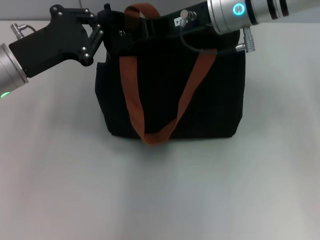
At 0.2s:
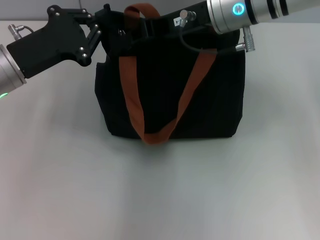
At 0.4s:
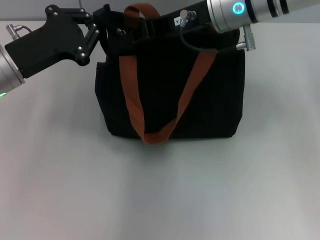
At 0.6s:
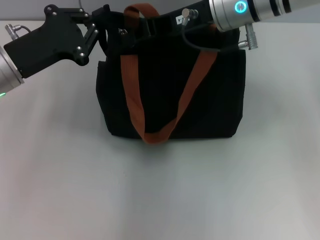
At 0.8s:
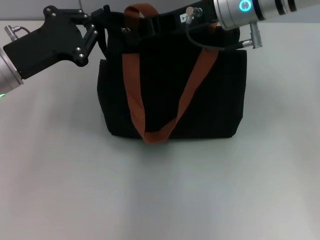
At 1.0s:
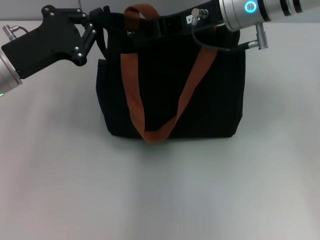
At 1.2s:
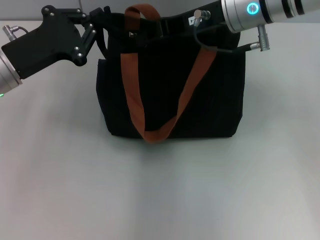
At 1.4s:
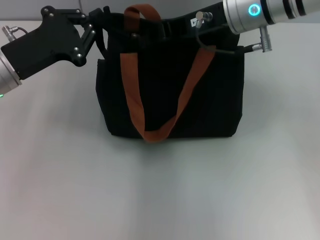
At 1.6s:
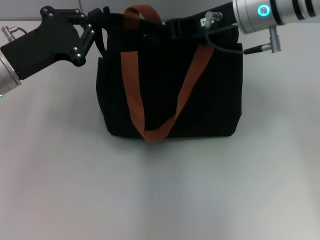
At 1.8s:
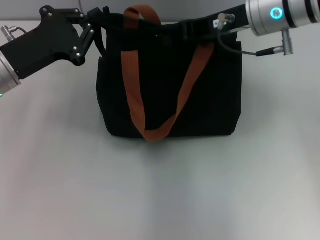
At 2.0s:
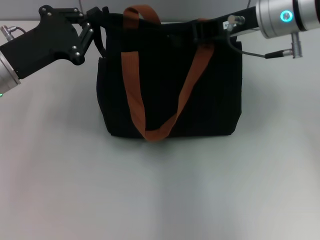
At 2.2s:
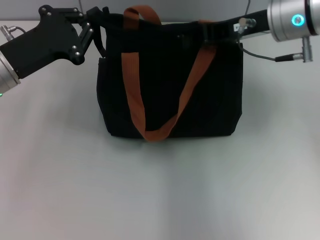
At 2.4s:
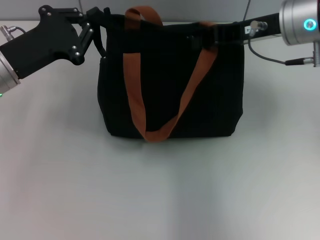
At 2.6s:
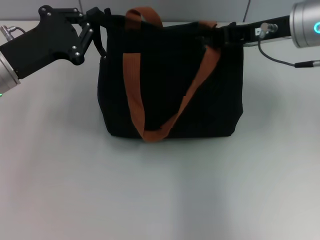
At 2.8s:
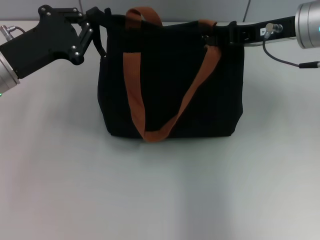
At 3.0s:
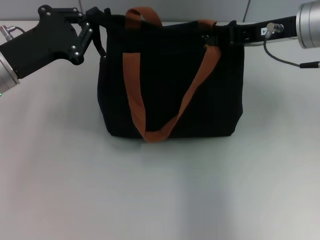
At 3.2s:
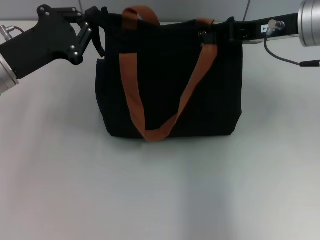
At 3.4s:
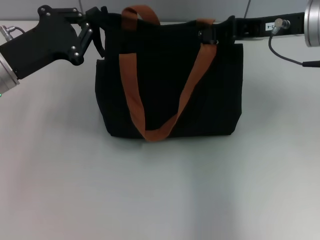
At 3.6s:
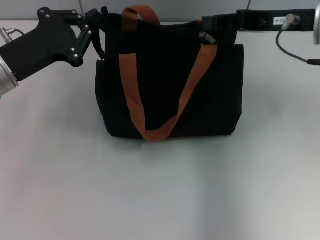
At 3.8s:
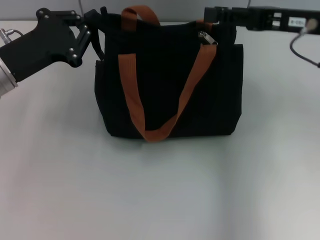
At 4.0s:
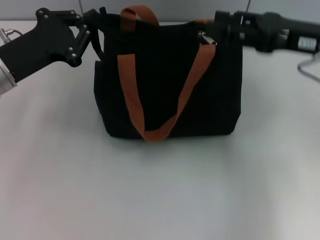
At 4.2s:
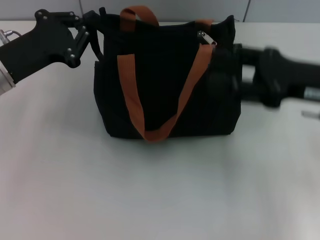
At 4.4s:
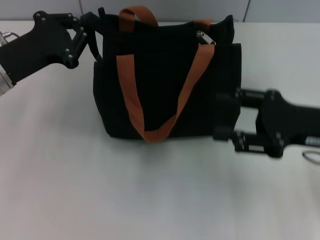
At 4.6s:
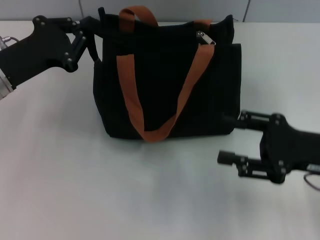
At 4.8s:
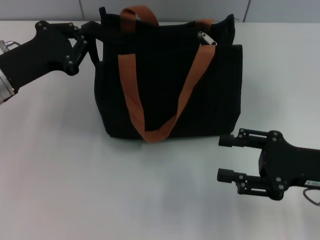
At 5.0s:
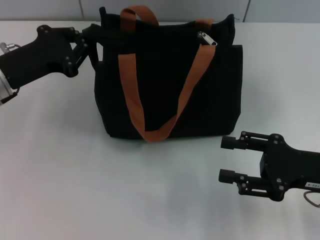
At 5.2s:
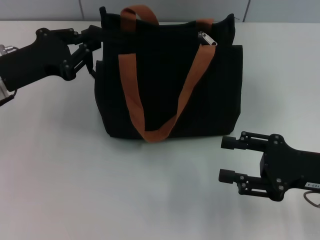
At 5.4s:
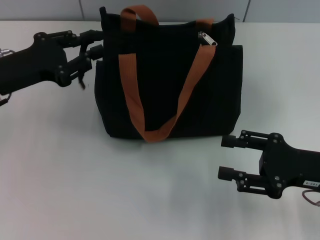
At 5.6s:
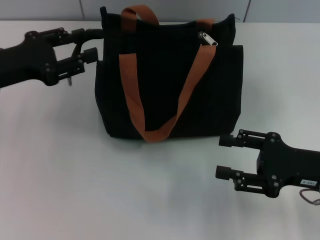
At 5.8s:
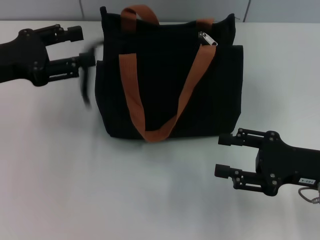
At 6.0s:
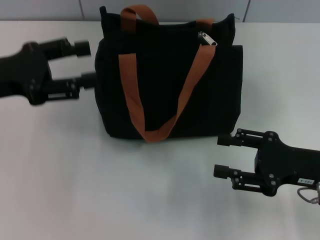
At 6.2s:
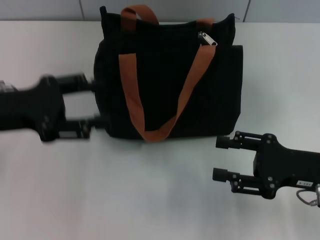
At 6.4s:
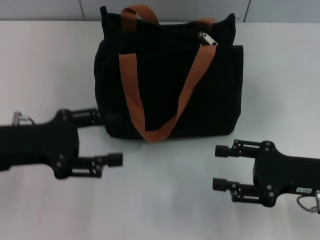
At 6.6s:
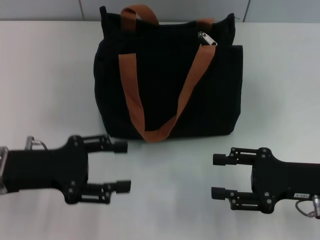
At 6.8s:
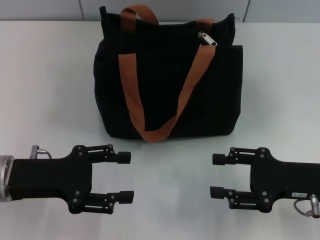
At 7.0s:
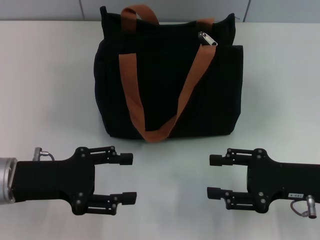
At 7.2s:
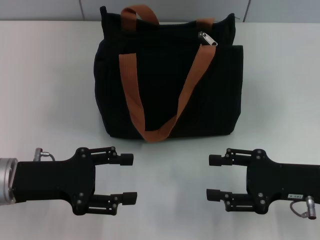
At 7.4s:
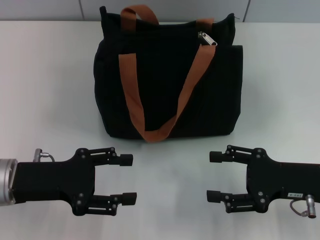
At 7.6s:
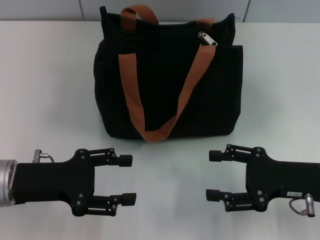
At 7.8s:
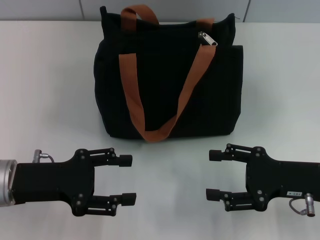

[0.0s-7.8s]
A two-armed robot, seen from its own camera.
Step, 0.0s to 3.6s: Pull up the zipper with your right hand.
Step, 3.8s to 5.4s: Grab the zipper with your left hand.
0.0s to 1.6s: The grippers move only a little.
1.6s to 3.2s: The right gripper goes approximately 5 cm to the right.
3.2s to 4.6s: The right gripper heads backward, downward and to the right, covering some 20 cm, and opens its fingers.
4.6s to 6.2s: The left gripper ends up about 5 cm from where it was, and opens up.
6.2s to 7.8s: The left gripper shifts approximately 5 cm downward.

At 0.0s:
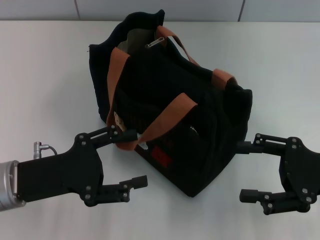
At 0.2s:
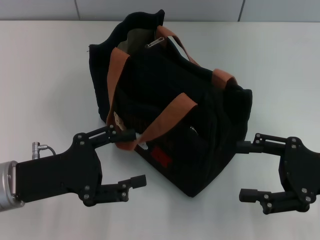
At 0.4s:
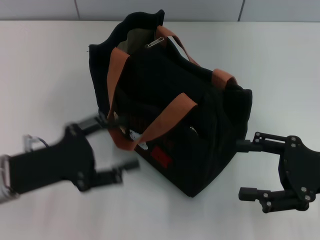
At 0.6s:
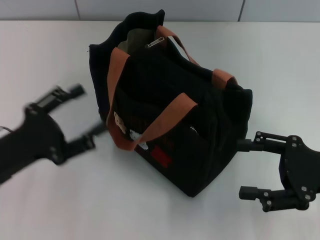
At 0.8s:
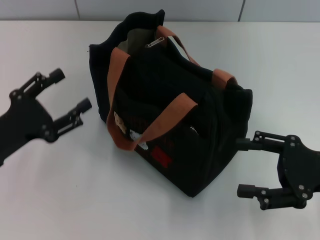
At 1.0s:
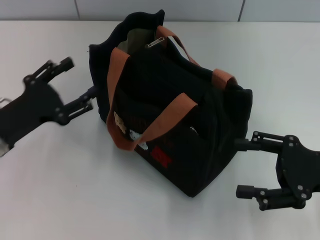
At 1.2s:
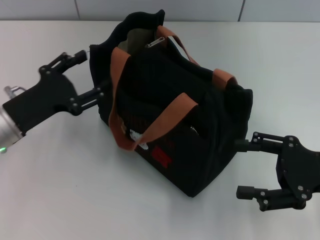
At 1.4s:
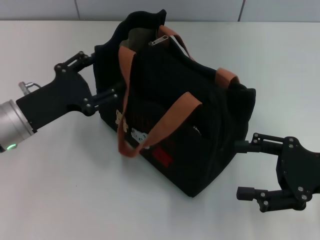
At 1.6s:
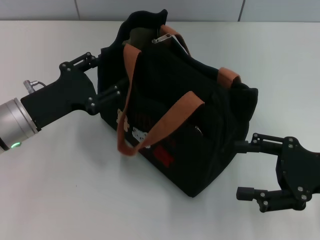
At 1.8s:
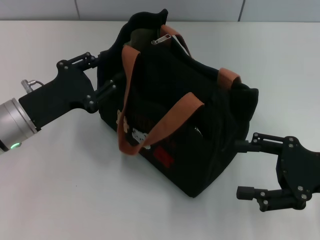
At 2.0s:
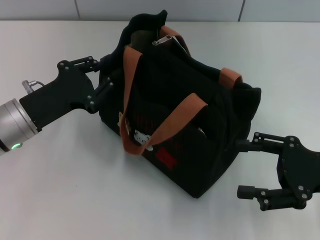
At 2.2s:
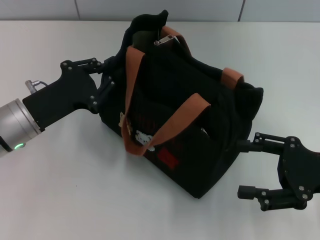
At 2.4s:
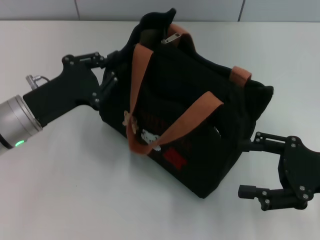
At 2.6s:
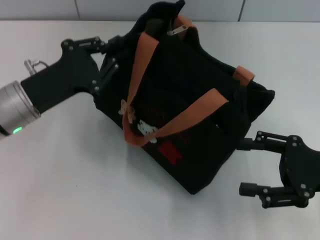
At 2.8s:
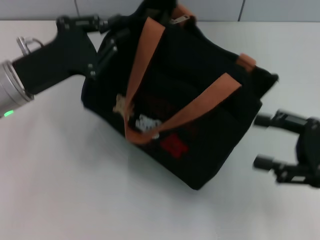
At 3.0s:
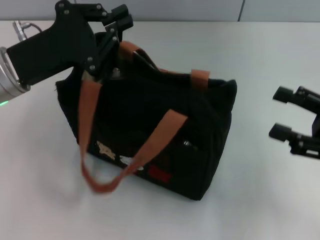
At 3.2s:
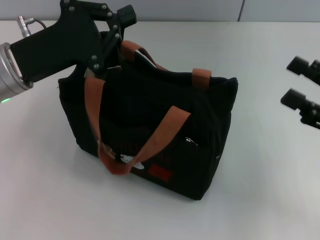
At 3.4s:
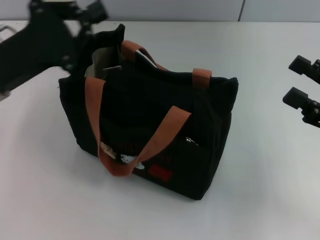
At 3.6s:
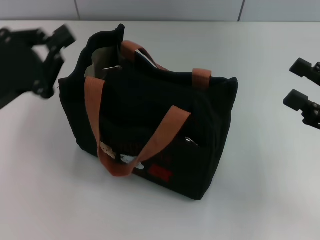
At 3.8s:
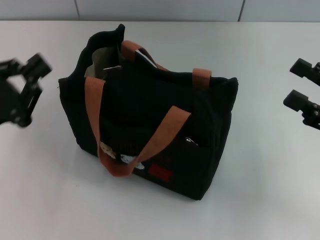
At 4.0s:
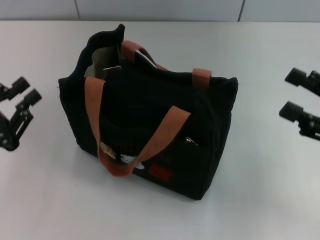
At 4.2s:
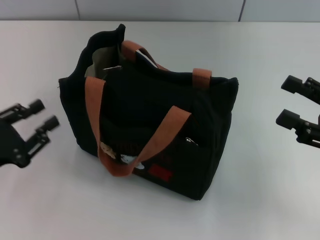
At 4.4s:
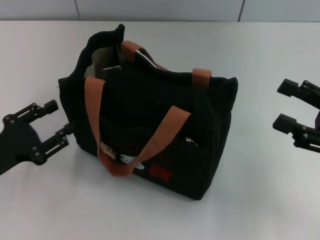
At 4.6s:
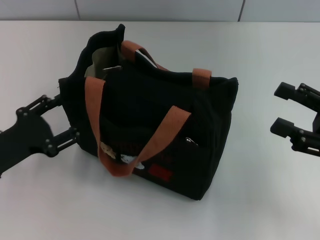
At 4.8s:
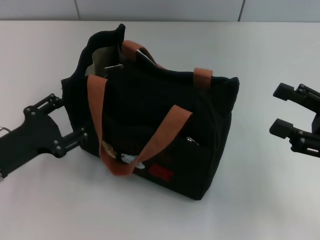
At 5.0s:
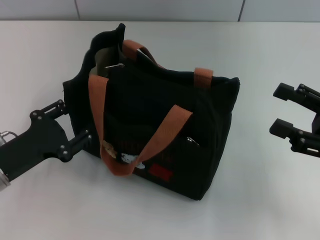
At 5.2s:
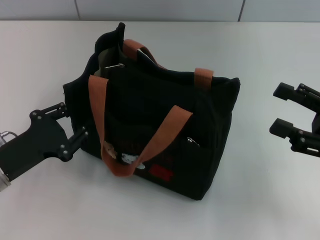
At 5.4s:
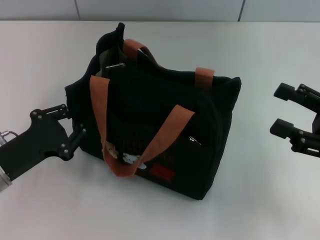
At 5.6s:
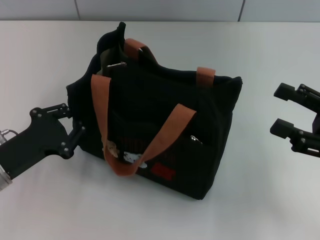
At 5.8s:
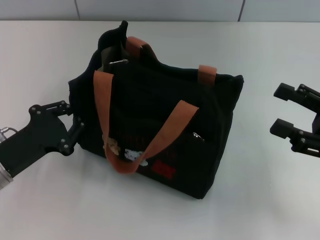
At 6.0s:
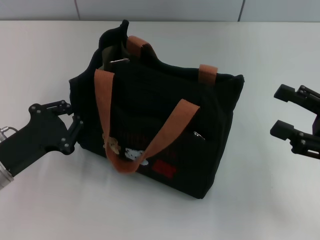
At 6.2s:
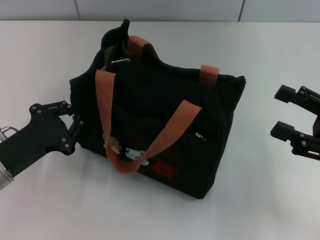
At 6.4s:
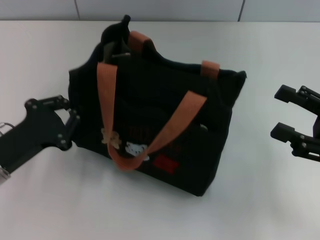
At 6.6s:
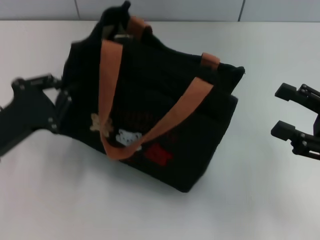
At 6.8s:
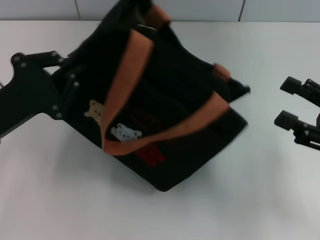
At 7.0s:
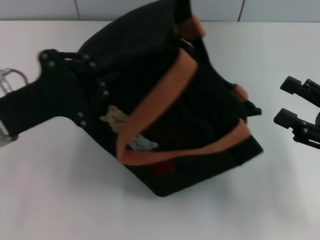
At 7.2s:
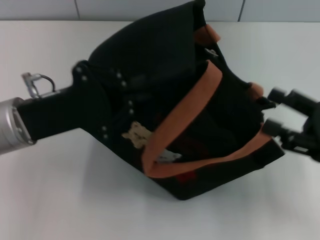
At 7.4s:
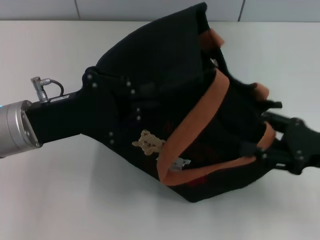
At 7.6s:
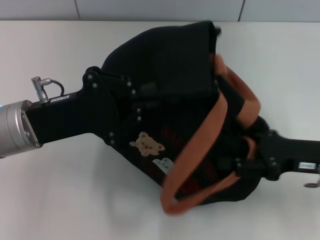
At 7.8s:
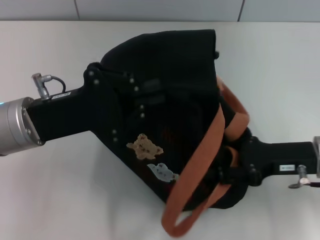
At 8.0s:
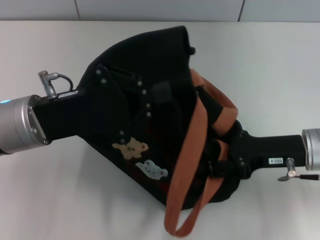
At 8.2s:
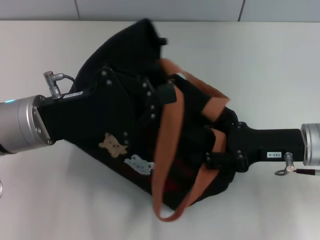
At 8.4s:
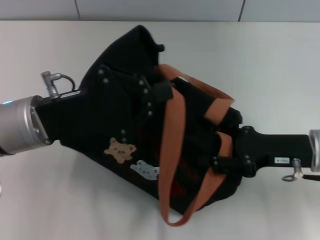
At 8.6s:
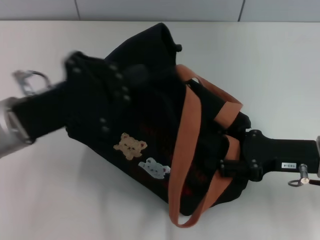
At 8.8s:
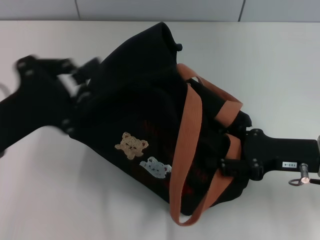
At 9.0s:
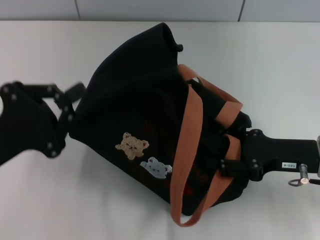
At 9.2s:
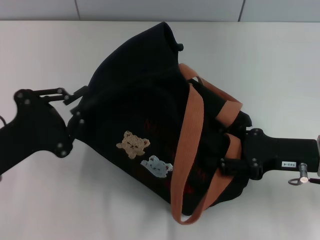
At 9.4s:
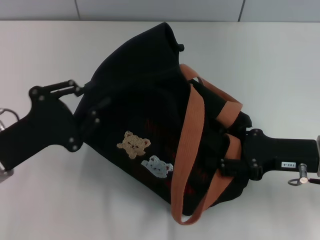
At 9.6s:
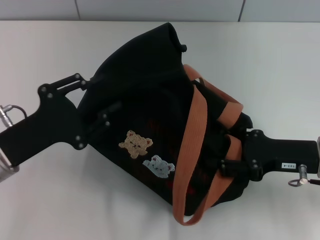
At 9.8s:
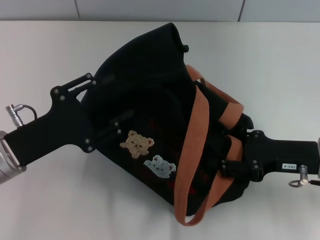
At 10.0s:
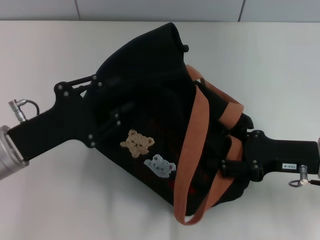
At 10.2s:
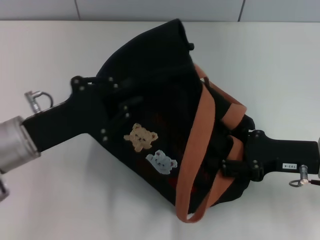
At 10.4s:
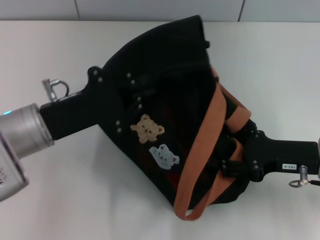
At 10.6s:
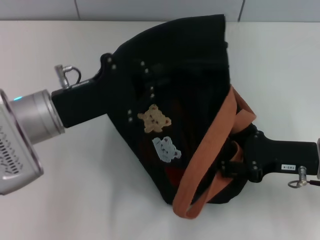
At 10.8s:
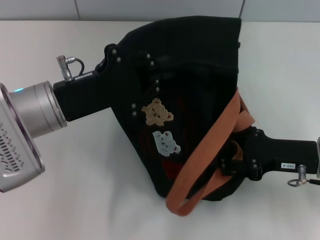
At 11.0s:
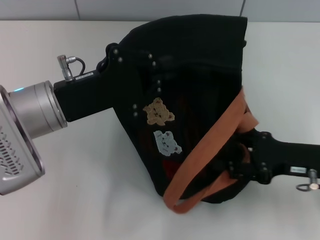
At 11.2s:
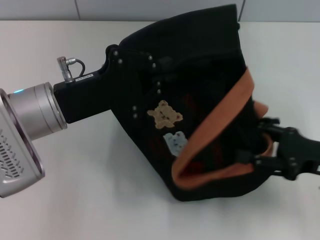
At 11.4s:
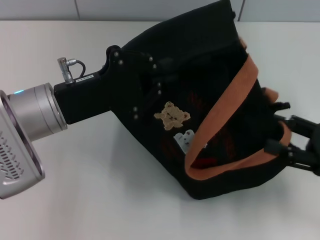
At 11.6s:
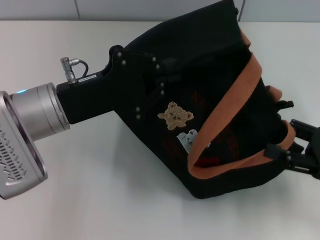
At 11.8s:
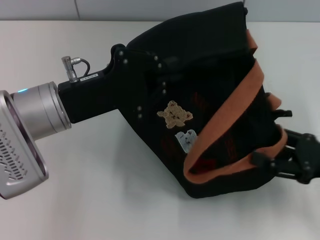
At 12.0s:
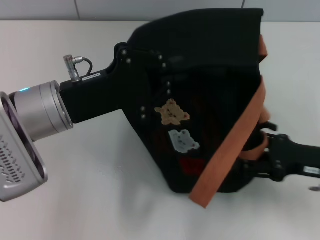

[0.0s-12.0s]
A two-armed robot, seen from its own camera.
0.0s to 1.6s: The left gripper goes roughly 5 cm forward.
1.6s to 3.0s: The left gripper is displaced upward by roughly 5 cm, and closes up.
3.0s to 4.4s: The left gripper heads backward, downward and to the left, covering approximately 15 cm, and opens.
4.4s to 6.0s: The left gripper opens, then closes again.
6.0s to 7.6s: The right gripper moves about 5 cm. The left gripper moves upward and to the right, about 10 cm.
7.6s to 9.0s: The left gripper shifts roughly 10 cm backward and to the left.
9.0s to 10.4s: The left gripper is displaced to the right and forward by roughly 10 cm, and opens, then closes again.

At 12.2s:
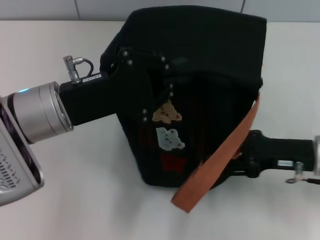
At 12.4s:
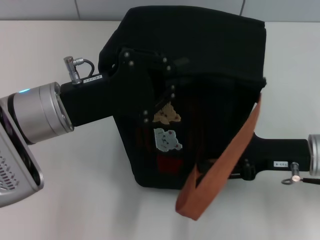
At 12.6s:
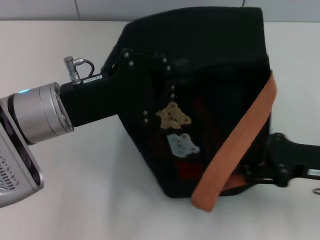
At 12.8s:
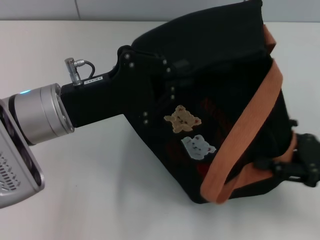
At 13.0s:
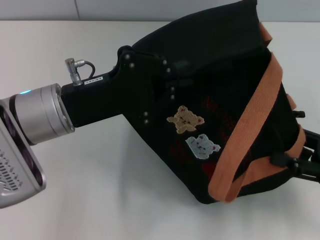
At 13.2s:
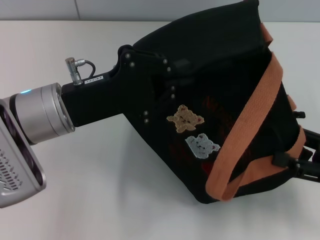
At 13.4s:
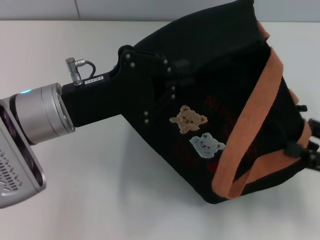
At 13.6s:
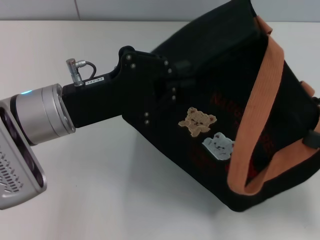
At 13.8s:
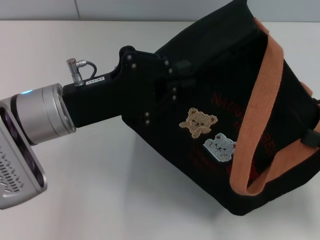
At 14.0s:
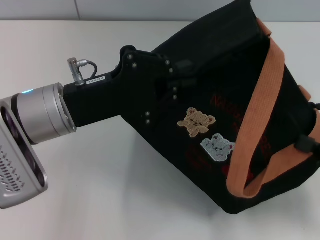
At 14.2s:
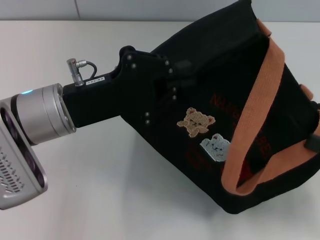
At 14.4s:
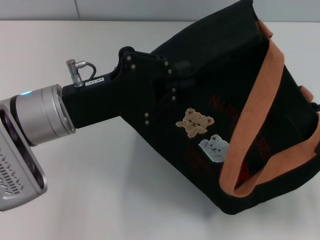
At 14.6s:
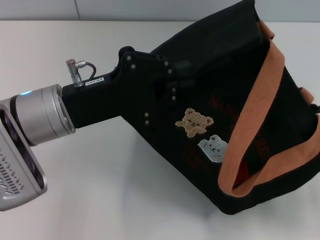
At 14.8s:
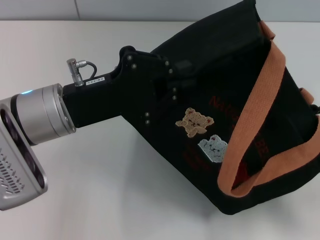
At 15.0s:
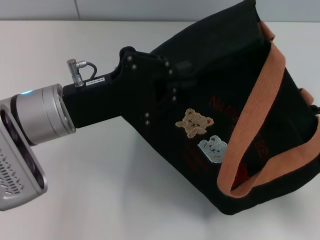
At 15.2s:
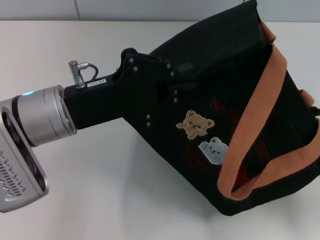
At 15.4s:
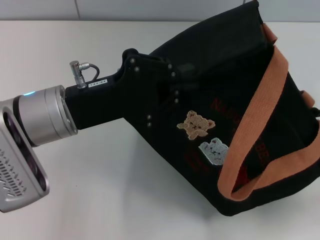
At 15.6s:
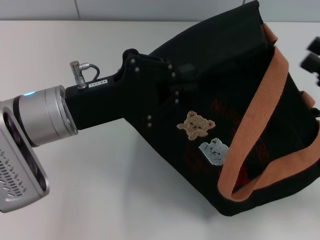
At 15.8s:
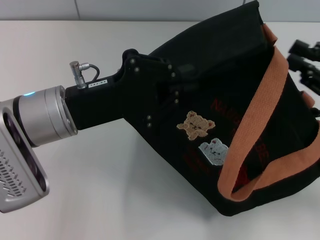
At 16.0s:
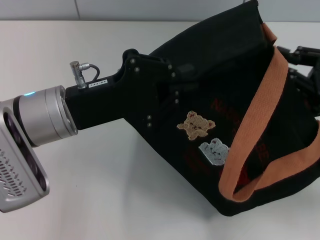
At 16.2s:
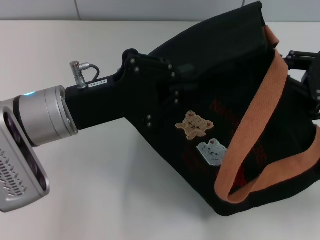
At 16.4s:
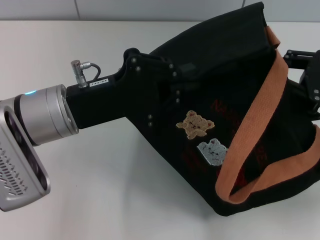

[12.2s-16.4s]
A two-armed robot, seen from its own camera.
12.2s to 13.6s: The right gripper goes approximately 10 cm to the right and backward.
13.6s to 15.0s: The right gripper goes approximately 5 cm to the right.
15.0s to 16.4s: The right gripper is displaced forward and to the left by about 15 cm, and closes up.
